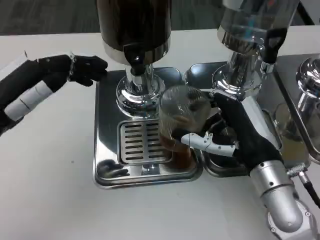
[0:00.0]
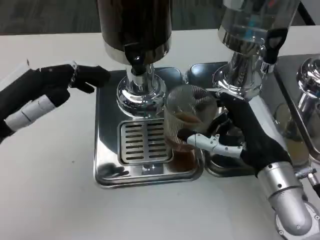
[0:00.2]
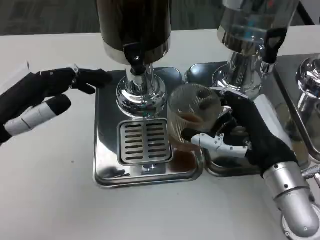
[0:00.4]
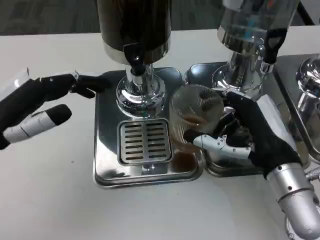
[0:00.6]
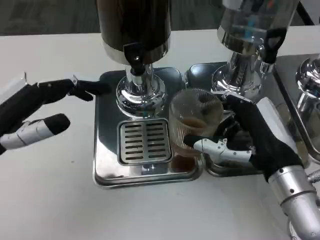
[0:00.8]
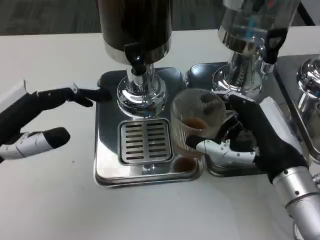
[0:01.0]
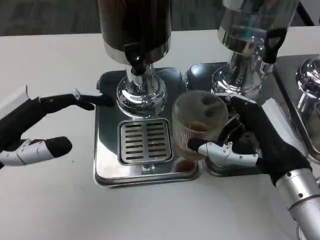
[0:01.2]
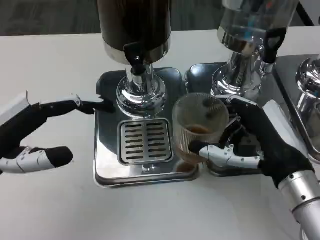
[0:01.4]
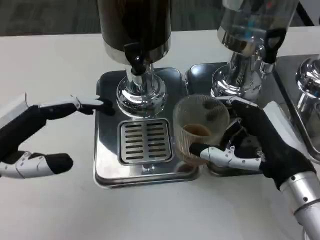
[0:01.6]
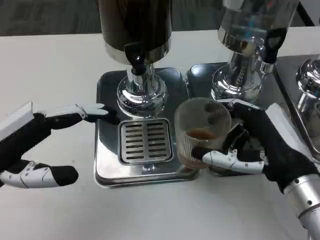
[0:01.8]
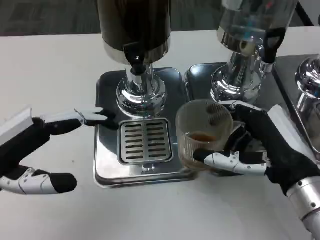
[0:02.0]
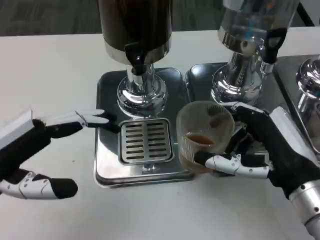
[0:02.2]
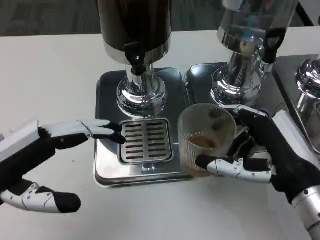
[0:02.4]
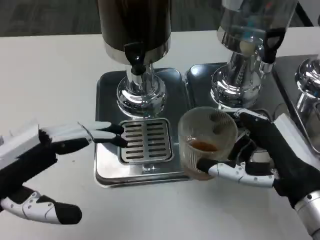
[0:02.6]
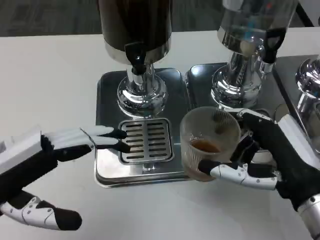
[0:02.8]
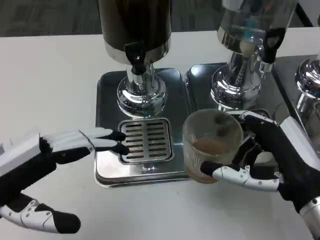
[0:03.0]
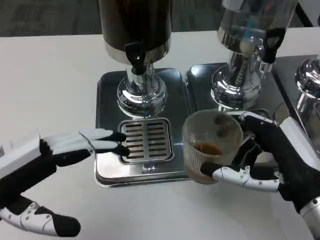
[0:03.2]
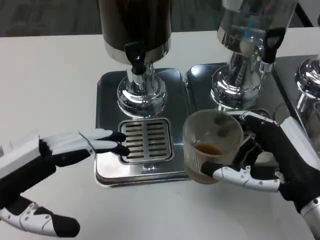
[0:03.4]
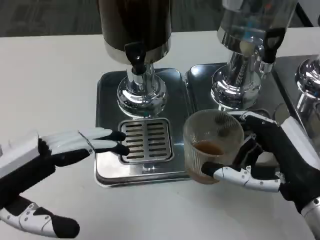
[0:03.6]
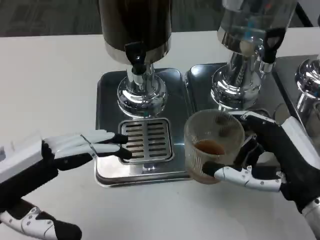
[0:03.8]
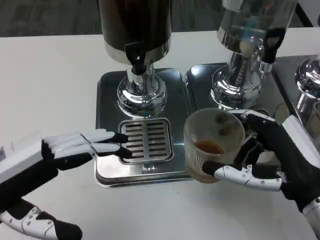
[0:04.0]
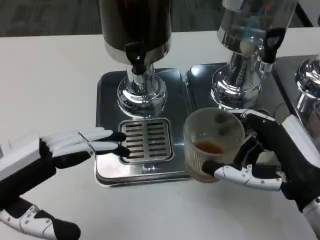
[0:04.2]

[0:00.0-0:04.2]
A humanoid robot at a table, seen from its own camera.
Task of the whole recording: Grasp the cup under the faucet to collect the drink, then remove the cup.
0:00.0 to 0:01.4: The left hand goes roughly 5 cm backward.
0:02.8 to 0:04.2: Both hands stay about where they are.

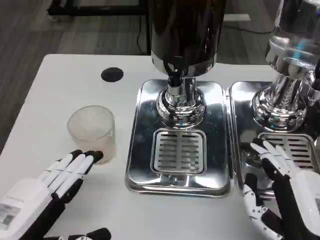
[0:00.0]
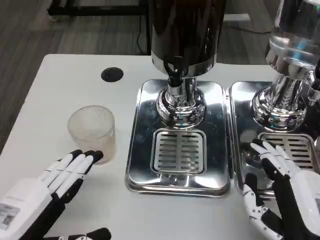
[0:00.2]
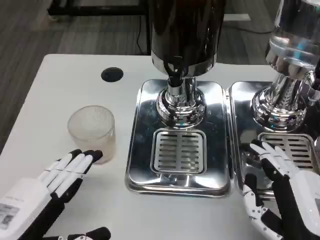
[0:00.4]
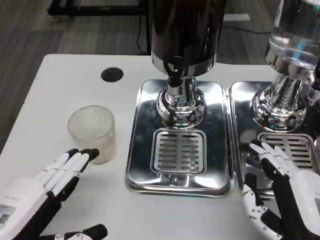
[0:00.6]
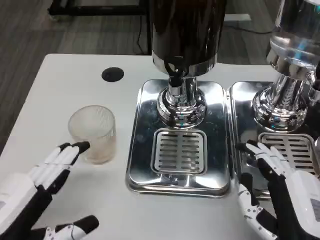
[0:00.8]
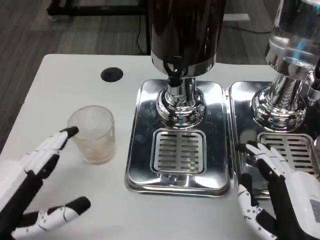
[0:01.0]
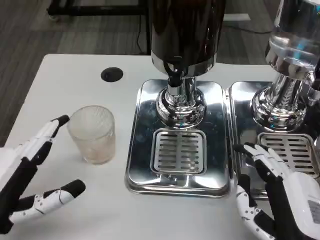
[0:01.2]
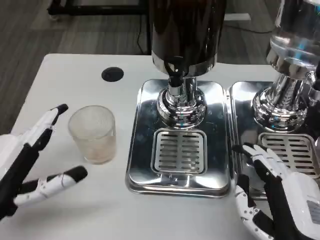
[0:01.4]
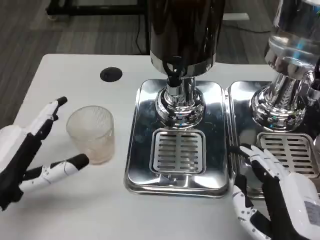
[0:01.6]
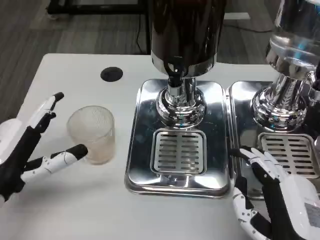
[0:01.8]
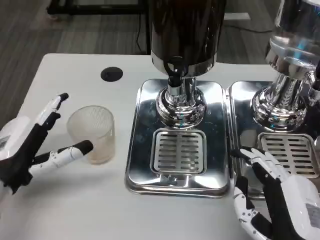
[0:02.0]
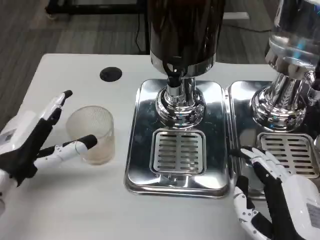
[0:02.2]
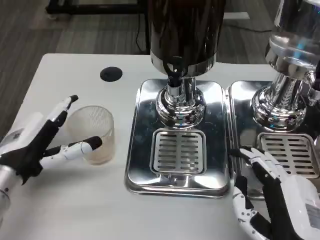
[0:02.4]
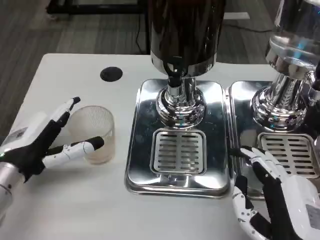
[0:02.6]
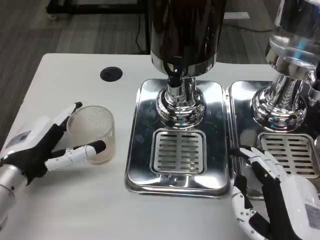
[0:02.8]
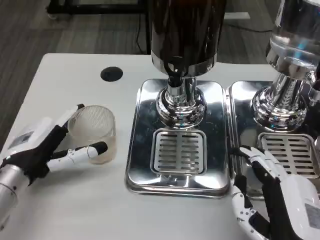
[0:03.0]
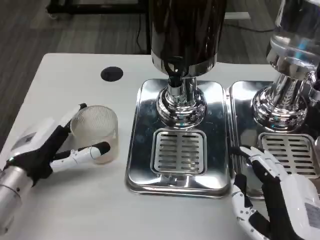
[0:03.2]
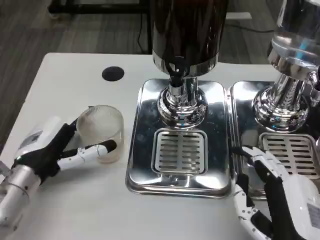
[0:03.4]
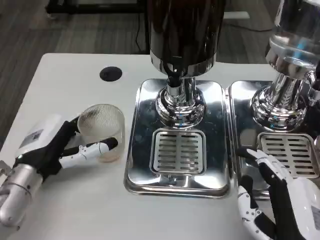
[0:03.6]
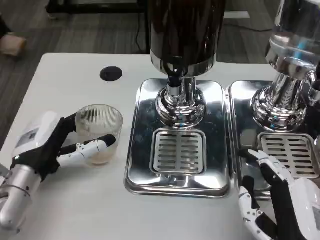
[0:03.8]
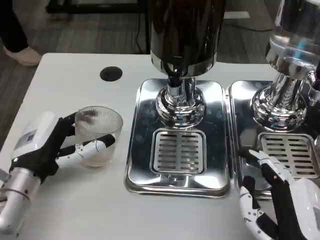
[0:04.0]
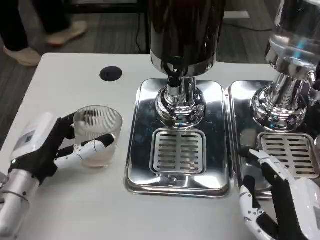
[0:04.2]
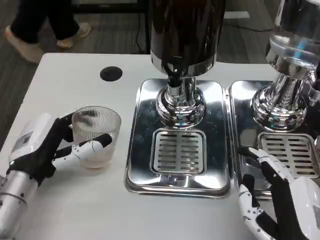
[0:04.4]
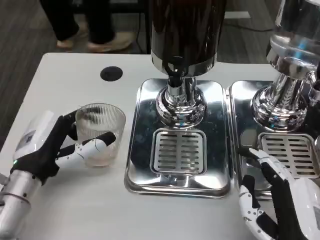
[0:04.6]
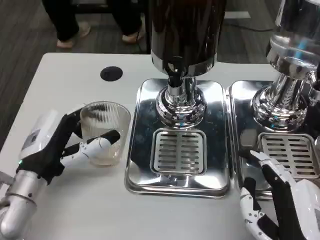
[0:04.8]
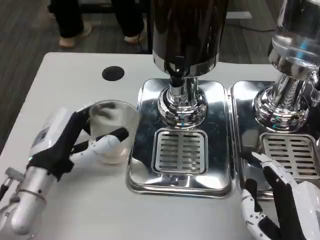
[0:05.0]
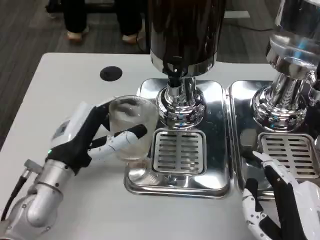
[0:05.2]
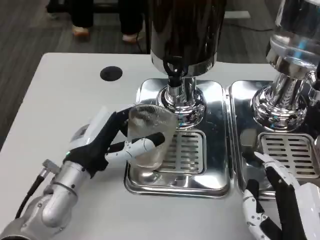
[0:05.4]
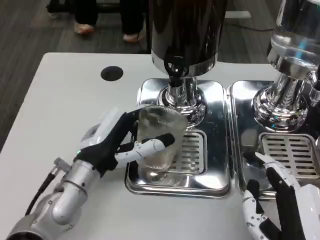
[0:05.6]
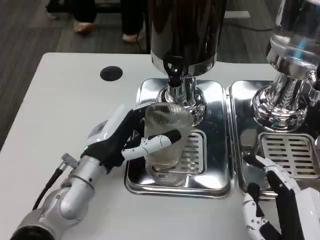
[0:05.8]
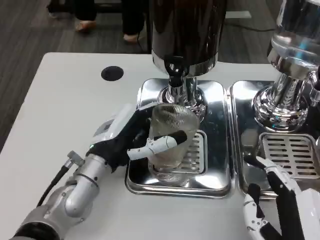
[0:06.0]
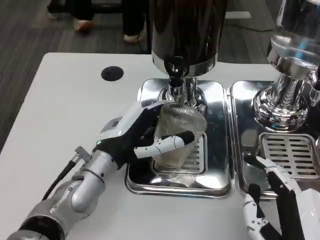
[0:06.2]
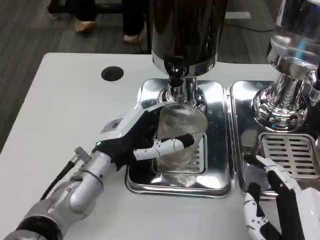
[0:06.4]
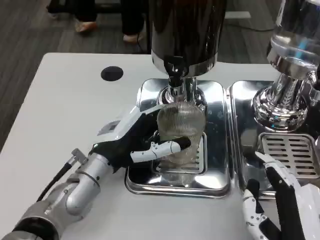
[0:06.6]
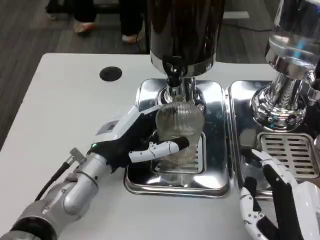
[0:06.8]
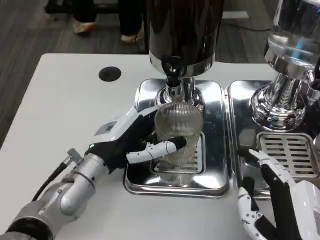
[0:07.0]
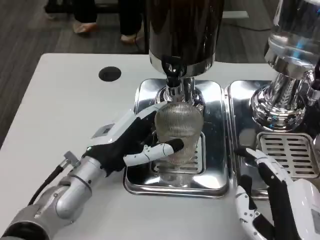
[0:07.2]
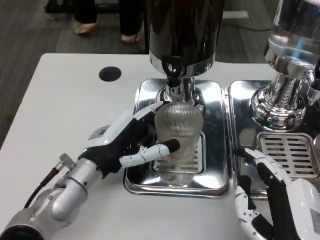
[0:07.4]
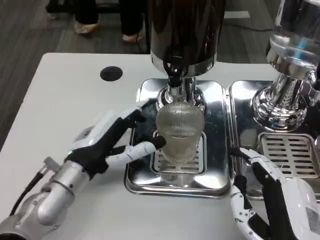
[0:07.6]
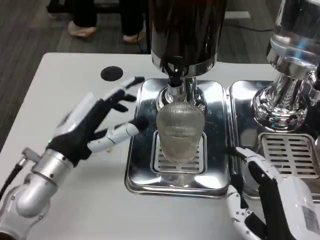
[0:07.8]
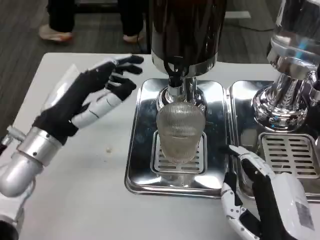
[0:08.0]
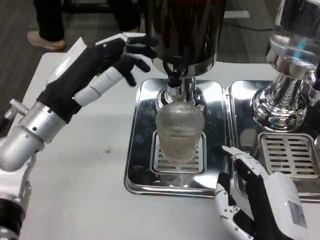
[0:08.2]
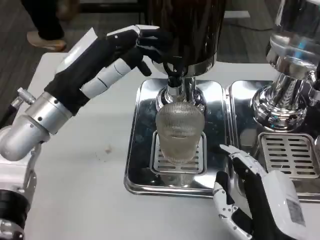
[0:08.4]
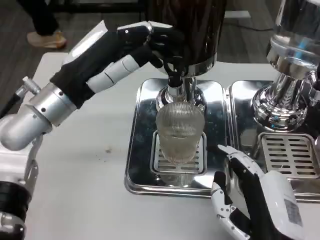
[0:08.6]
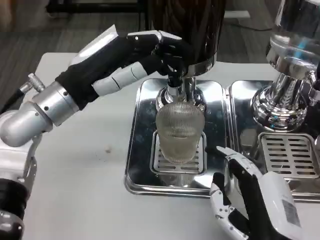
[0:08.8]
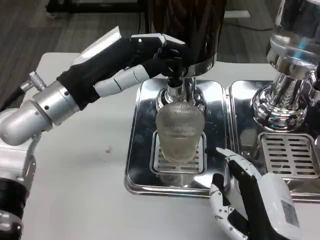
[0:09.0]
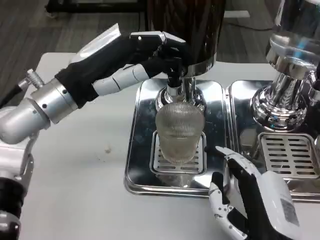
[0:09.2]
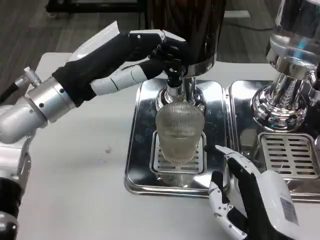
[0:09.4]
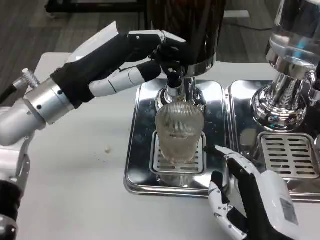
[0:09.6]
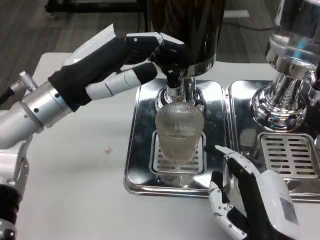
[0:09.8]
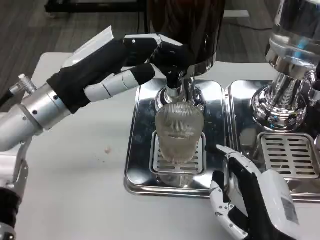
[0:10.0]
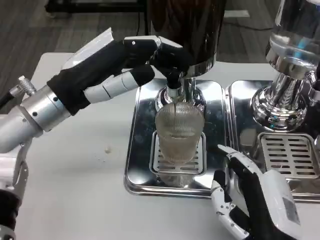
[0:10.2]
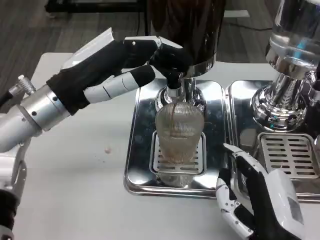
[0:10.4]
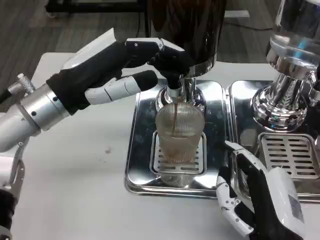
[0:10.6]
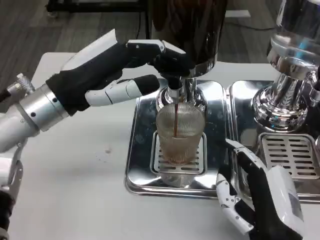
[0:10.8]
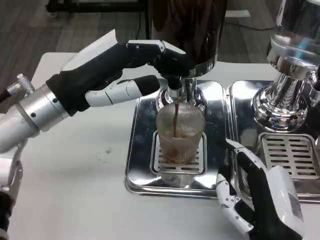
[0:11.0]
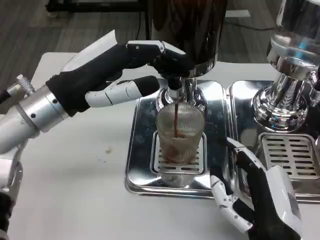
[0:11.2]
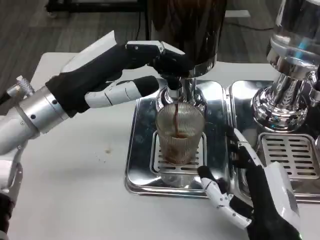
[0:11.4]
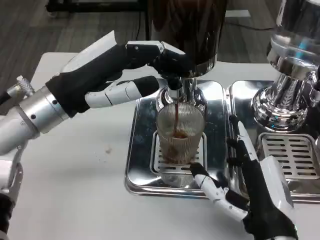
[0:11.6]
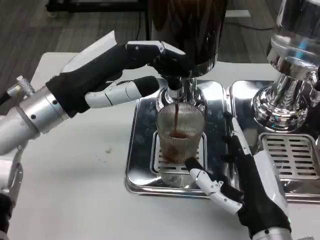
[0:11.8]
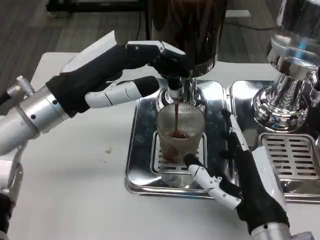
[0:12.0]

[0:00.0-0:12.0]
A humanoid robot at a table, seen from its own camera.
Task of the whole recording: Grasp the cup under the faucet to collect the drink, then remove the cup.
0:00.0 to 0:01.6: The left hand travels forward by about 10 cm.
0:01.6 to 0:03.0: The left hand travels forward by approximately 5 cm.
0:03.0 to 0:04.4: The hands move only a little.
0:04.4 to 0:06.0: The left hand travels to the right by about 10 cm.
0:07.6 to 0:09.0: The left hand moves upward and forward, some 15 cm.
0:09.0 to 0:10.4: There are only small adjustments of the hands.

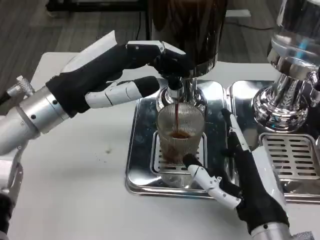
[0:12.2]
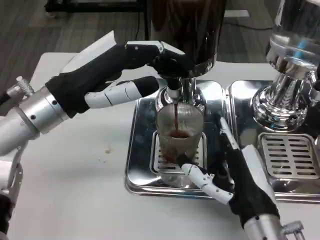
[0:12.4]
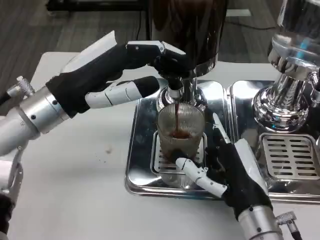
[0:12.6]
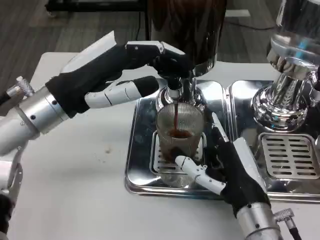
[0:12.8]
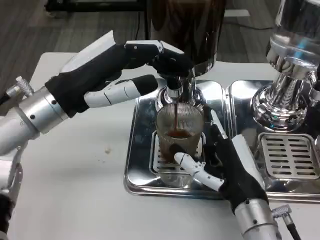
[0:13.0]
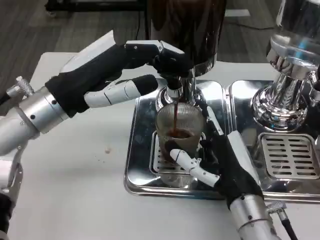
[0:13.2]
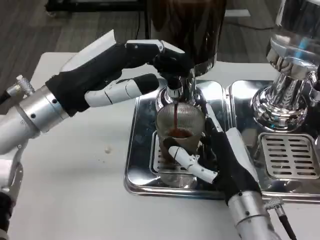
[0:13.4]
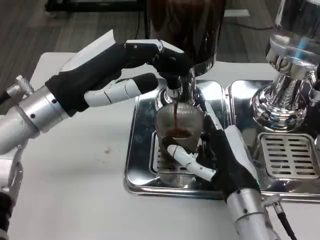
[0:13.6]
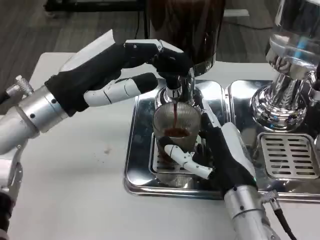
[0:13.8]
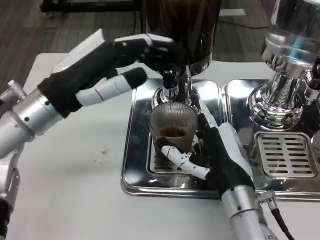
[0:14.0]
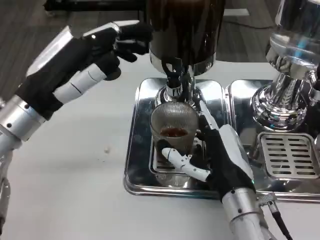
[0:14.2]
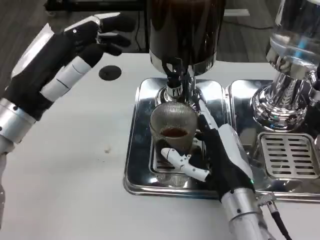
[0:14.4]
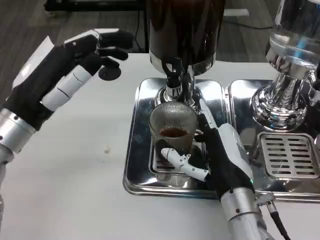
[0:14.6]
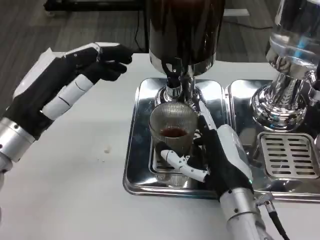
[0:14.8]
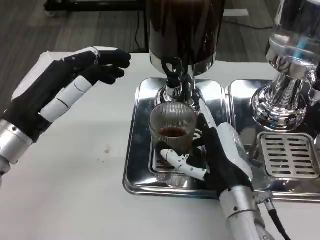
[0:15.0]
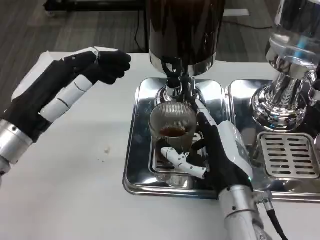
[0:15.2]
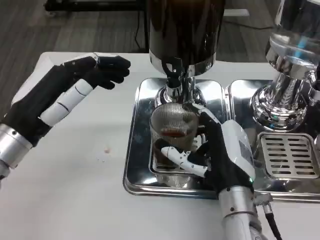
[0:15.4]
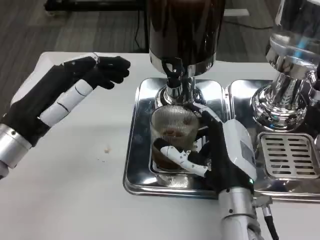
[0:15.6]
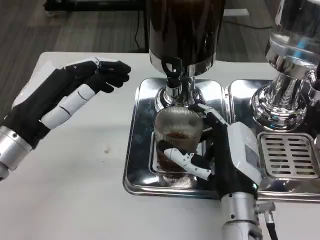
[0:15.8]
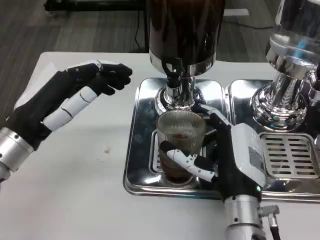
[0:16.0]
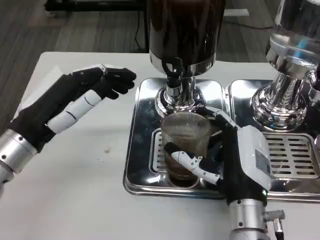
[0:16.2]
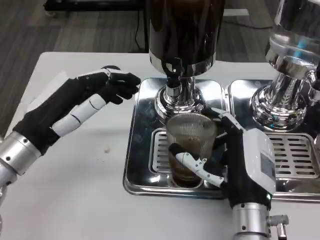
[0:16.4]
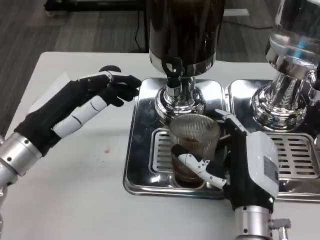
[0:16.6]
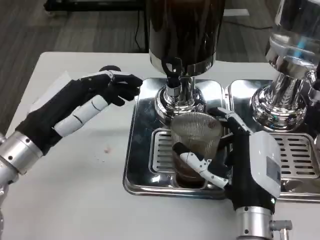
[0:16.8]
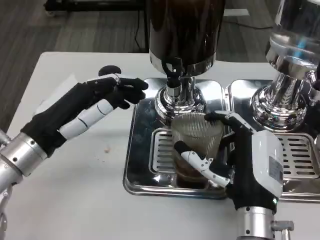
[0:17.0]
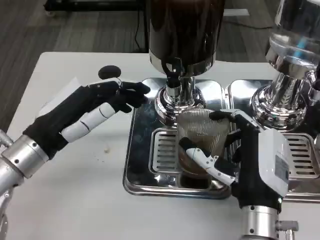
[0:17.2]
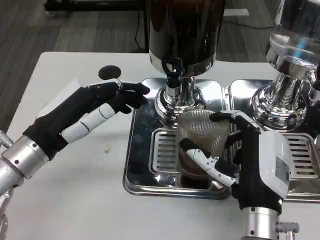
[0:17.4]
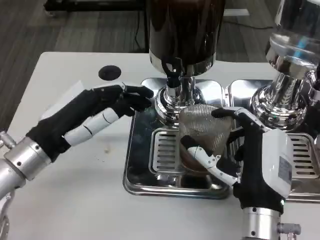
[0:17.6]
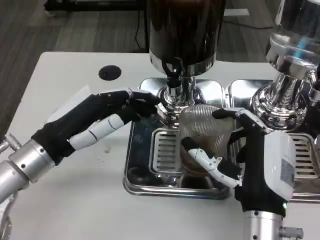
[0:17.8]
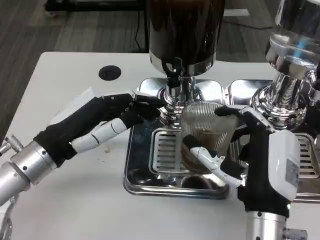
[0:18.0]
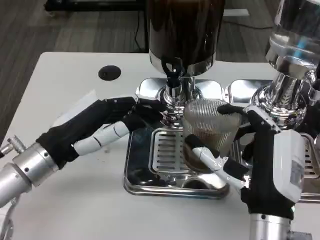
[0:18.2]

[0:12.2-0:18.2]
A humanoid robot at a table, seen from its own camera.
Task of the whole recording: Grasp the cup under the faucet to collect the drink, then remove the cup.
0:12.2 to 0:13.8: The right hand moves forward, approximately 5 cm.
0:13.8 to 0:15.2: The left hand ends up about 5 cm from where it was.
